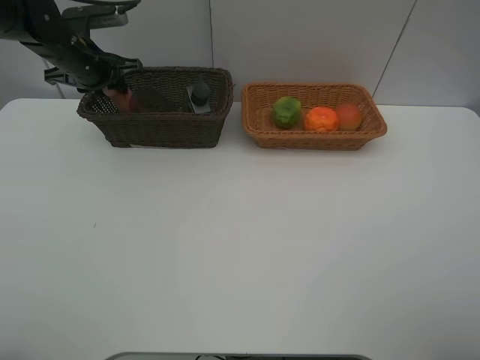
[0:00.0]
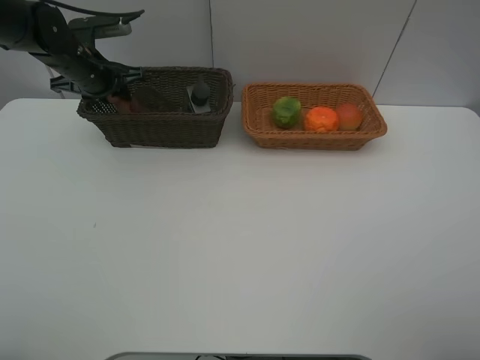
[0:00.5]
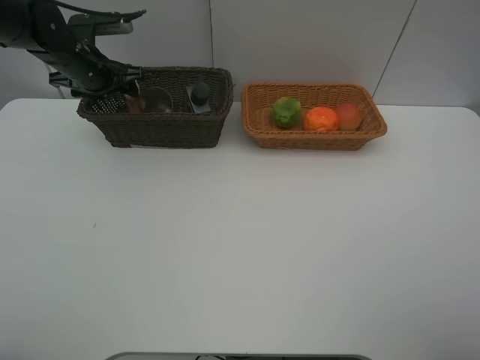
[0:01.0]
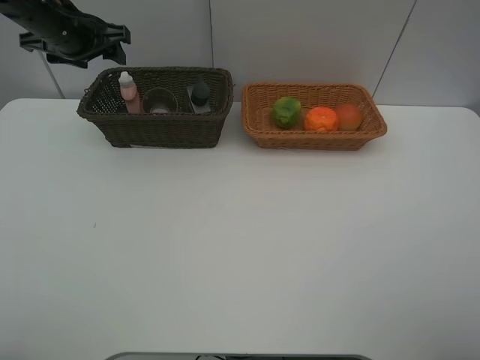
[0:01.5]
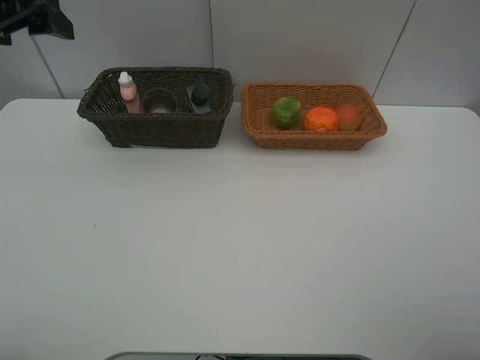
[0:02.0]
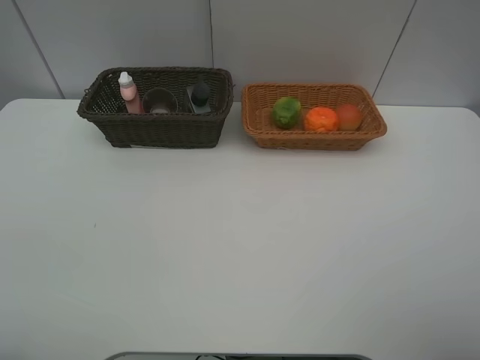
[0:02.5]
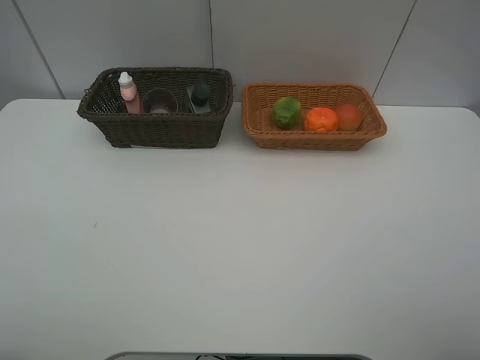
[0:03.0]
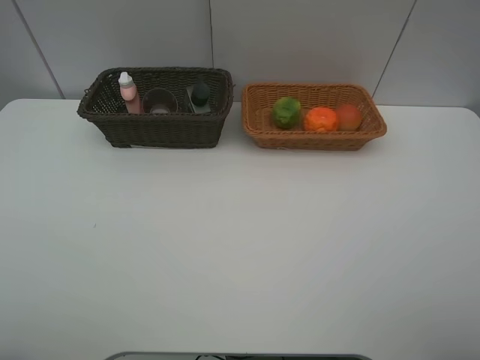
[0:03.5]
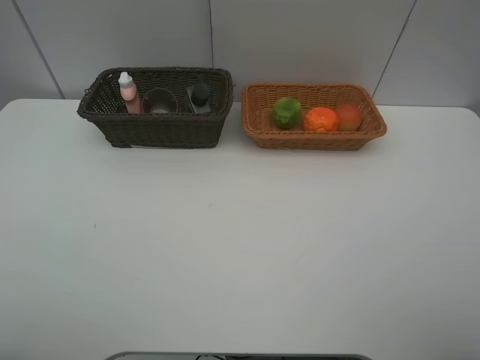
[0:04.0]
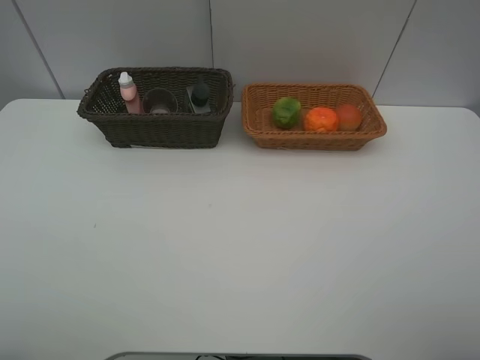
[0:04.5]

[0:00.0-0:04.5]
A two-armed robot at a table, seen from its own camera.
Task of the whole recording: place multiple objects separately in different baskets.
0:00.0 to 0:02.0: The left gripper goes about 20 cm backward and upward, and opens up.
0:02.0 to 0:04.5: The left gripper goes about 30 cm backward.

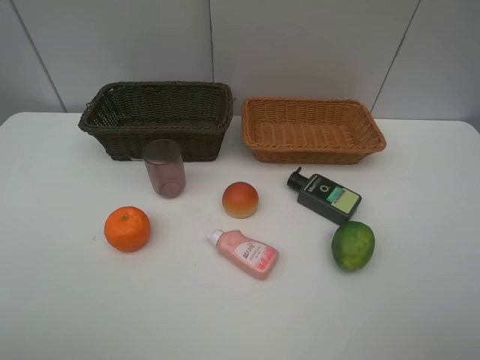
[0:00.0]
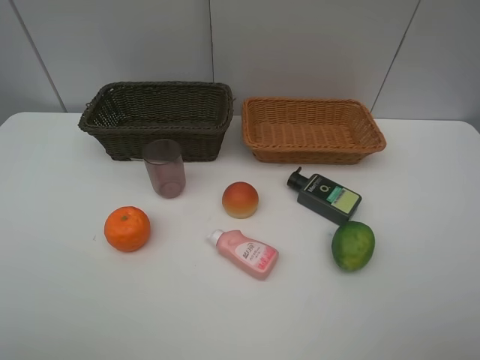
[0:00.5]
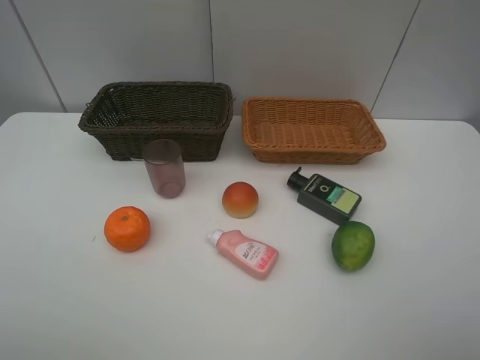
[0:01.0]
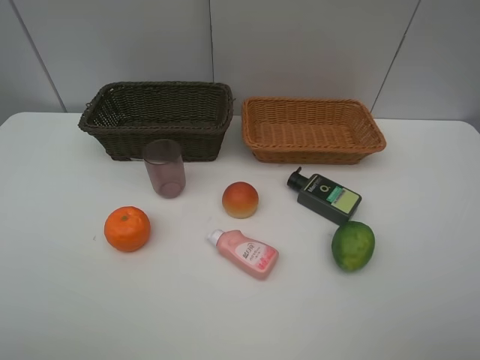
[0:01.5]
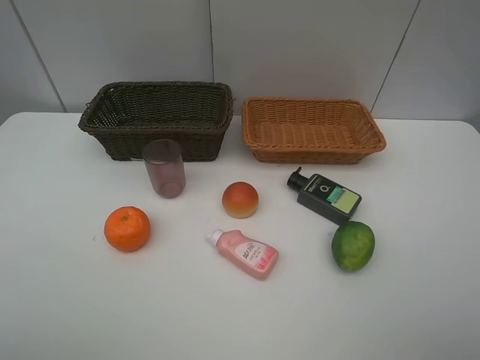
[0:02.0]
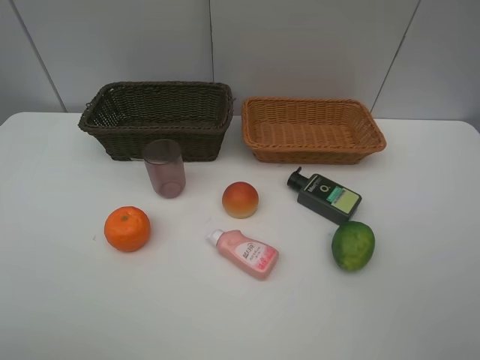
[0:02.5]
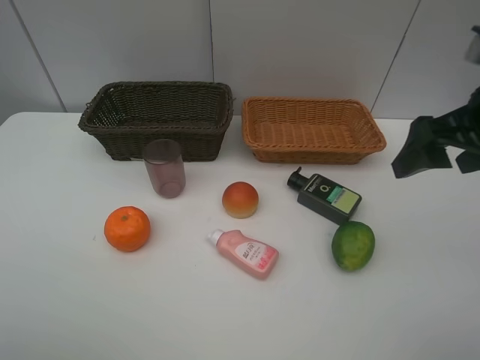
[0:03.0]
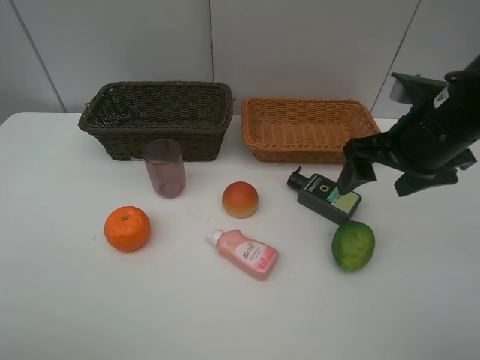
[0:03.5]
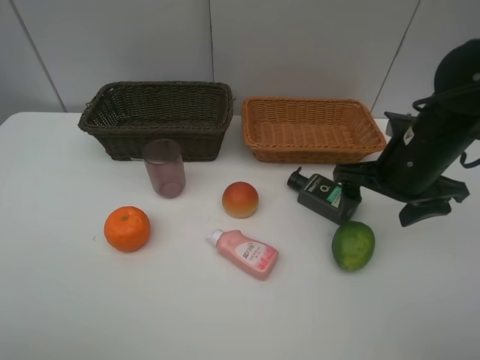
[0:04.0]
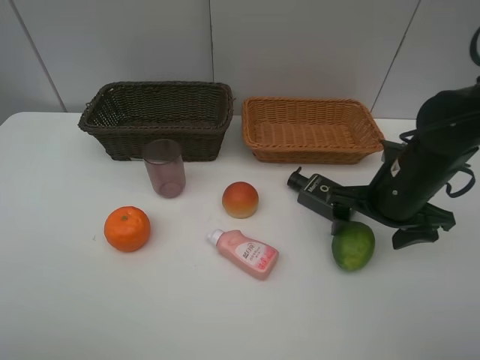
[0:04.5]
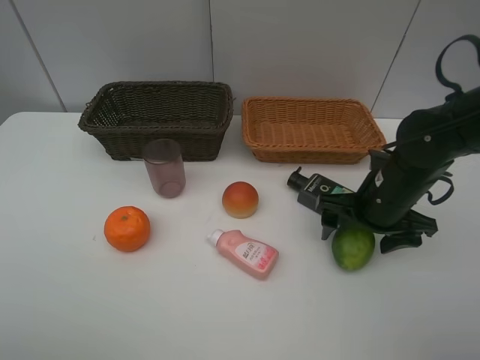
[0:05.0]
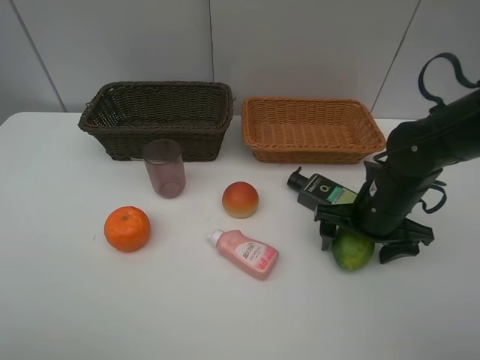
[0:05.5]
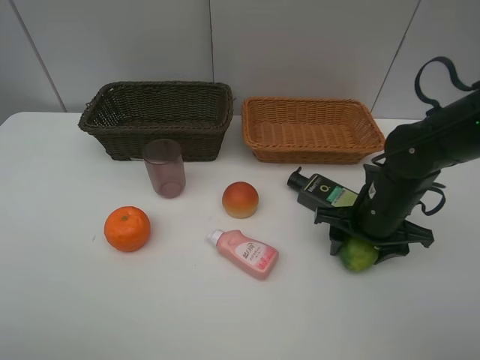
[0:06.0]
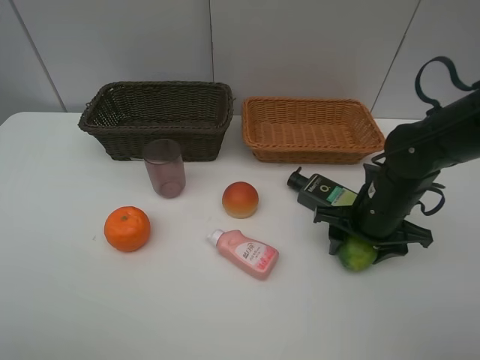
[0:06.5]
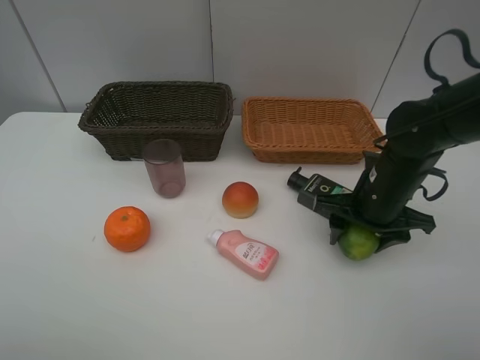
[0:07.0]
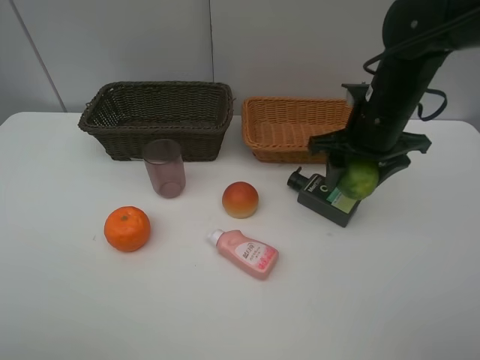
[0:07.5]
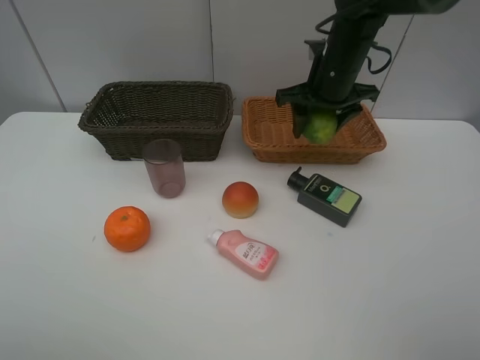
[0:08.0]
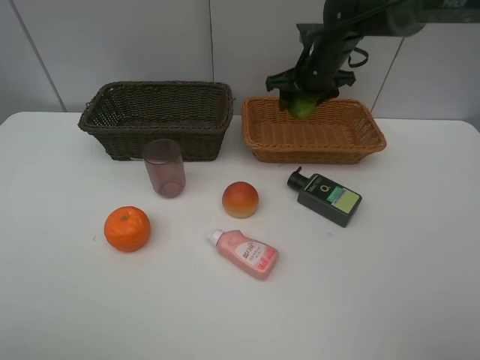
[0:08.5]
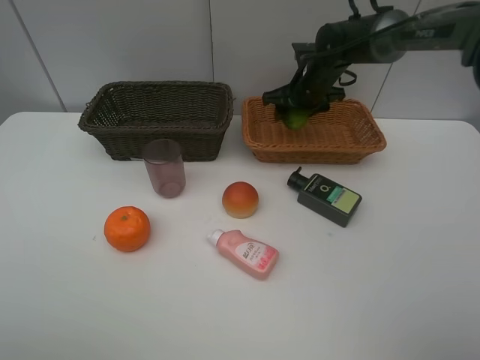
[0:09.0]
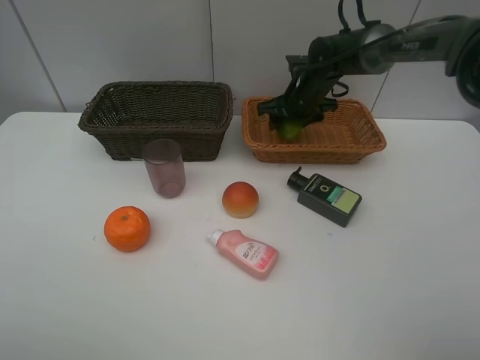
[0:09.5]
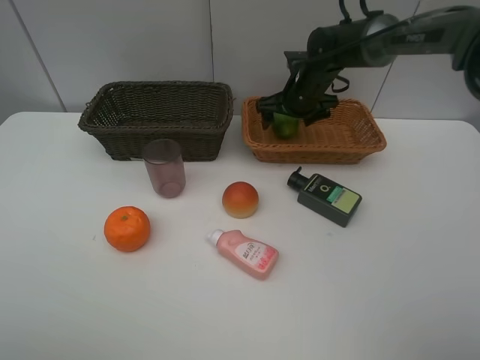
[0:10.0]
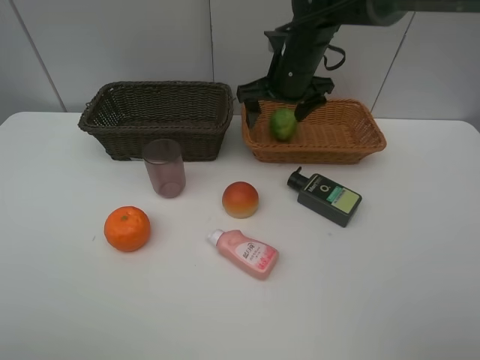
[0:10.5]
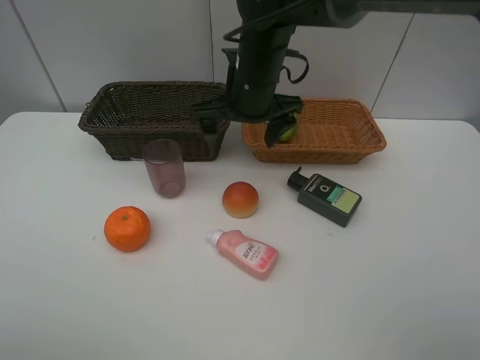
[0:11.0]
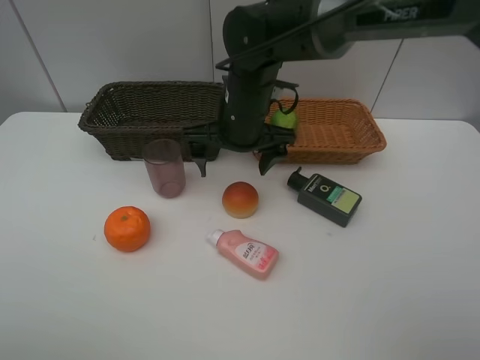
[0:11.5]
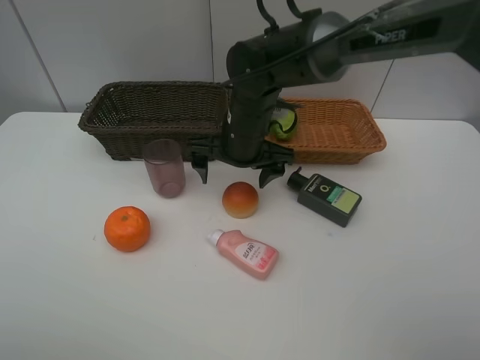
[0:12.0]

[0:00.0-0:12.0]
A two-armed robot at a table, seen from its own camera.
Task of the whole recording: place multiple objects separately in different baskets.
0:00.0 to 0:02.0: The two grippers keep their place.
0:02.0 to 0:04.0: The right gripper moves forward, about 25 cm.
0:04.0 to 0:06.0: The right gripper is displaced downward by roughly 10 cm, and closes.
0:06.0 to 0:08.0: The right gripper shifts roughly 20 cm forward and upward.
0:08.0 to 0:10.0: The right gripper moves forward and downward, approximately 10 cm, and opens its fingers.
0:10.0 to 0:12.0: The right gripper is displaced backward and to the left by about 20 cm.

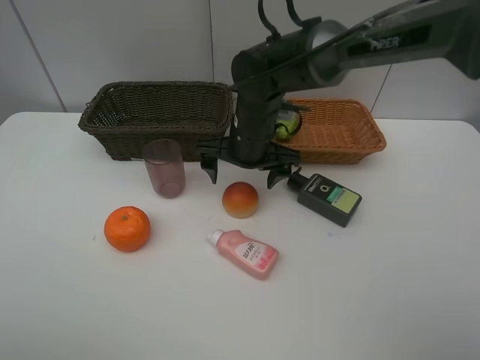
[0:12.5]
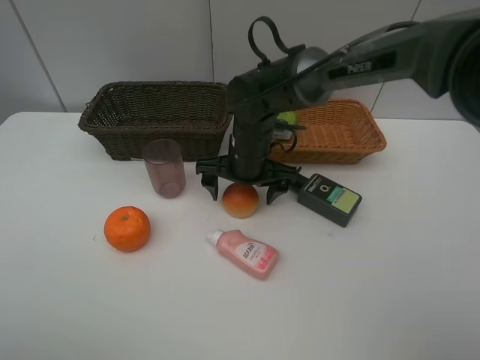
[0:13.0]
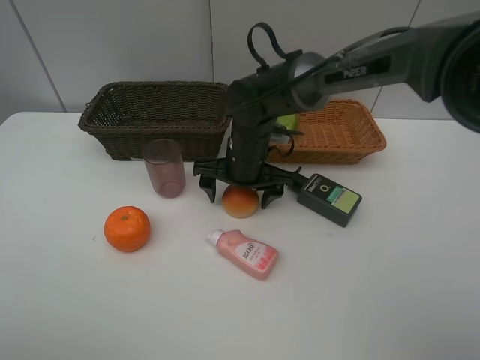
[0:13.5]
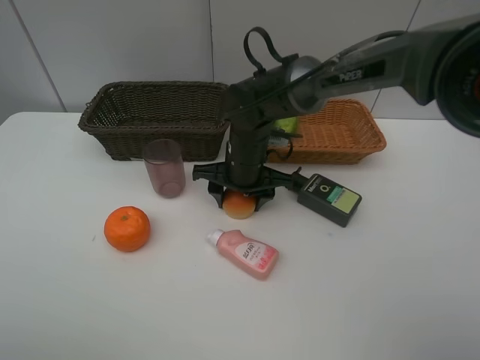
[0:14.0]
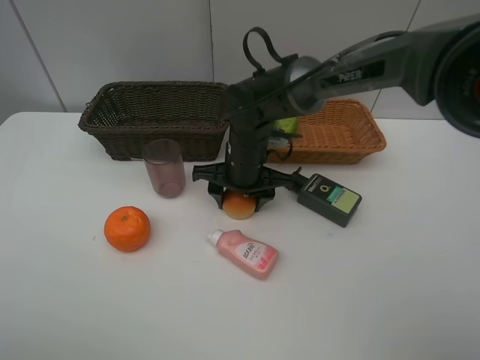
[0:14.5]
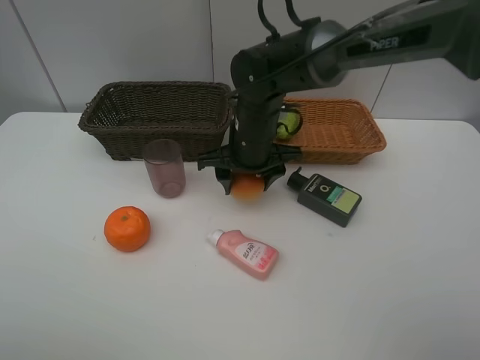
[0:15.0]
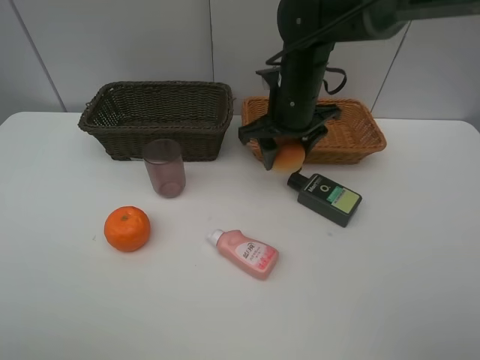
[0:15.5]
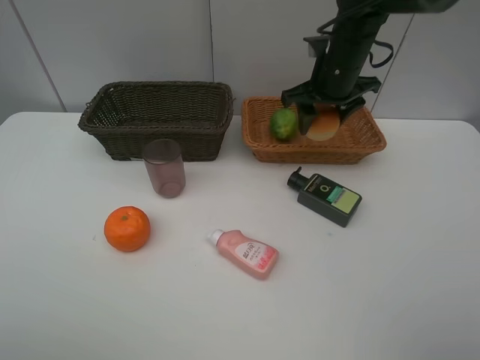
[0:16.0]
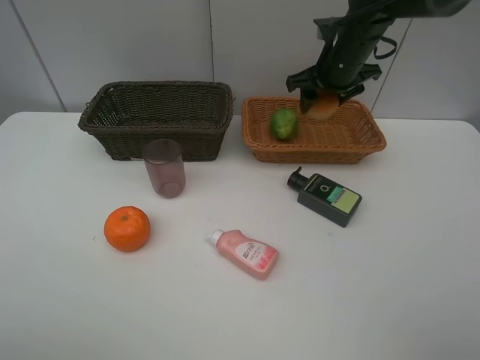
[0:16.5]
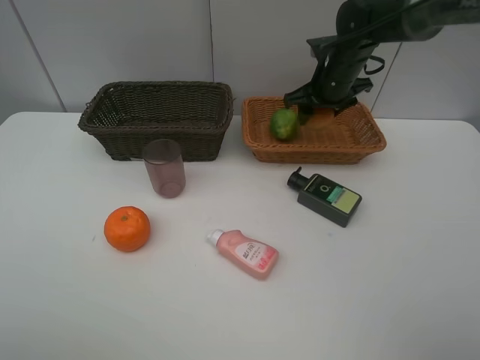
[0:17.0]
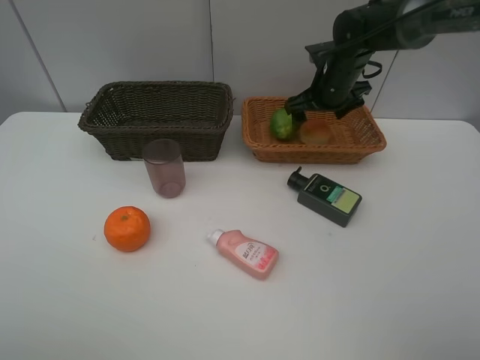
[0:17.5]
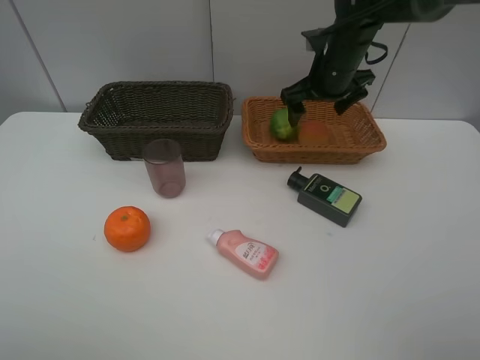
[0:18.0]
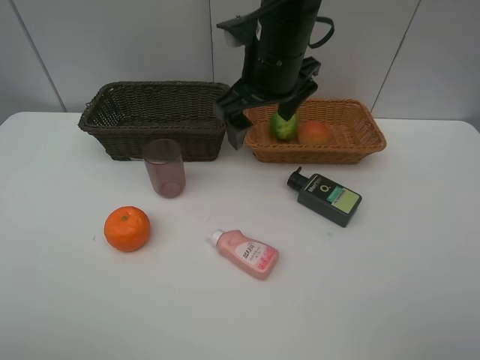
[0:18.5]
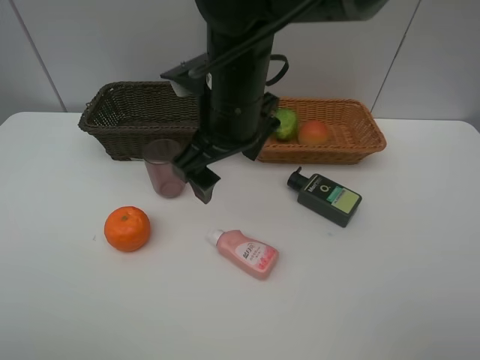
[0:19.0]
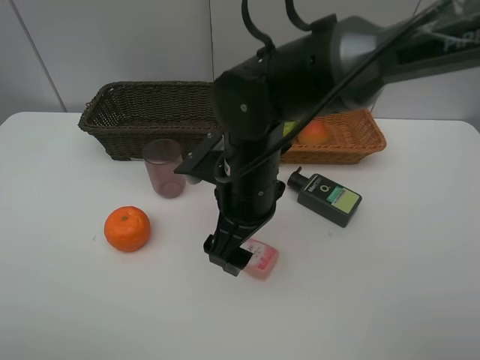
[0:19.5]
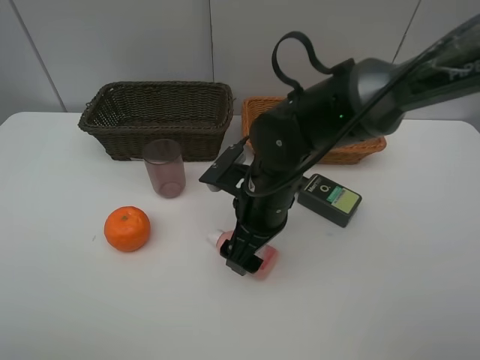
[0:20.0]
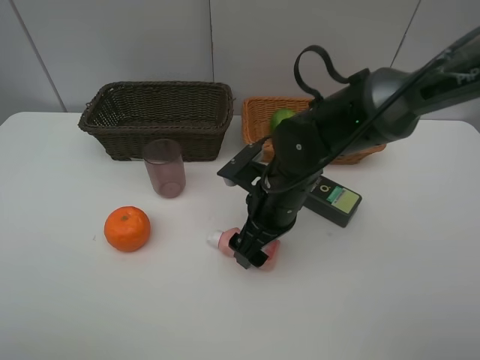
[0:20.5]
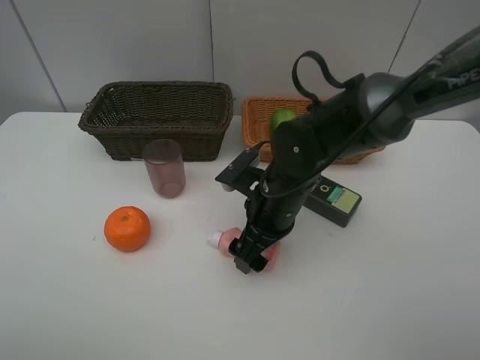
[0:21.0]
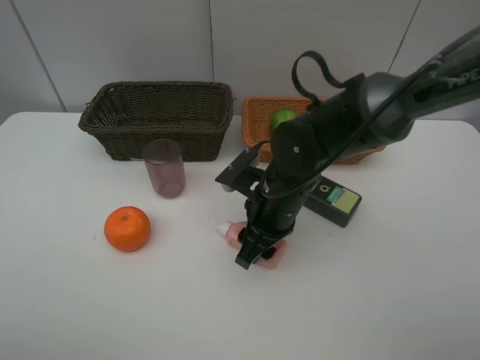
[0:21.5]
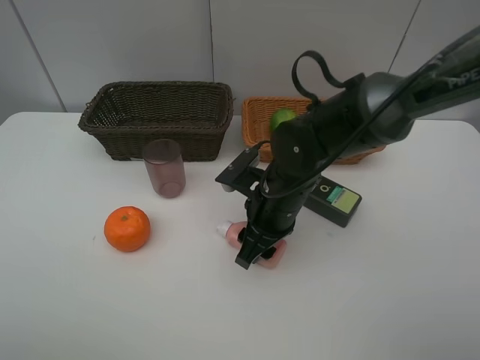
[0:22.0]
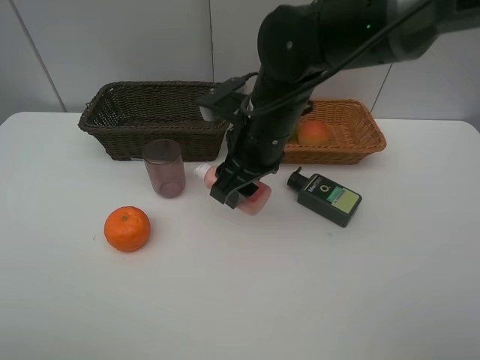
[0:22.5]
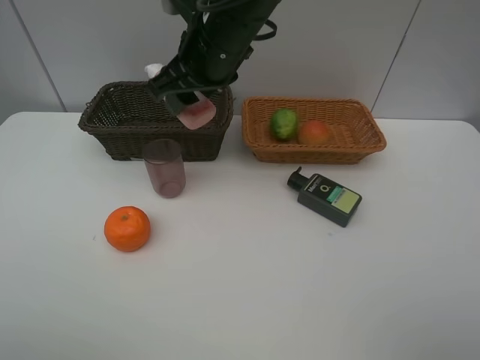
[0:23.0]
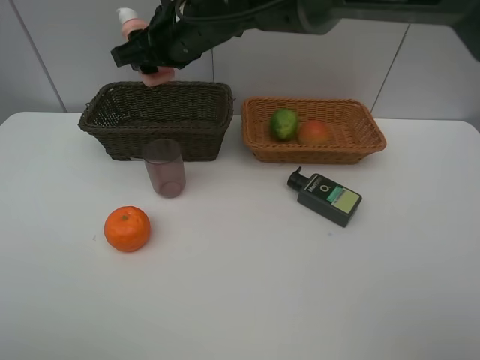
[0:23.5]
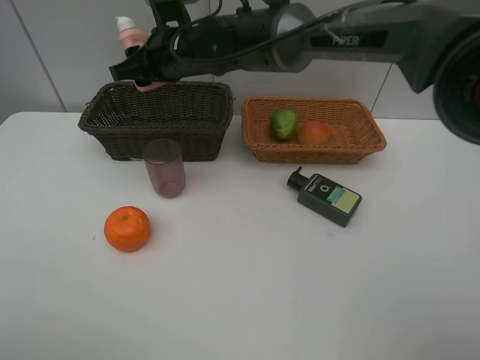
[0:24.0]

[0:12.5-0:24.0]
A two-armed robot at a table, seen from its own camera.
Task of the whole recording: place multiple objects separately in different baskets.
0:12.5 to 0:14.5: The right gripper closes up.
0:14.5 to 0:16.5: The right gripper heads to the right, upward and forward, covering approximately 20 cm.
0:16.5 to 0:18.5: The right gripper goes about 15 cm to the left and backward, and opens its fingers.
0:18.5 to 0:20.0: The right gripper shifts some 15 cm downward and backward.
0:20.0 to 0:22.0: The right gripper closes its fingers.
0:22.0 to 0:24.0: The right gripper heads forward, to the left and upward, covering about 25 cm.
